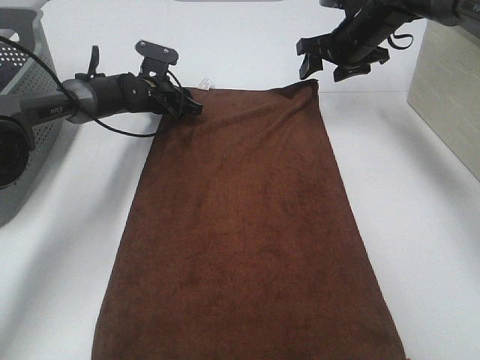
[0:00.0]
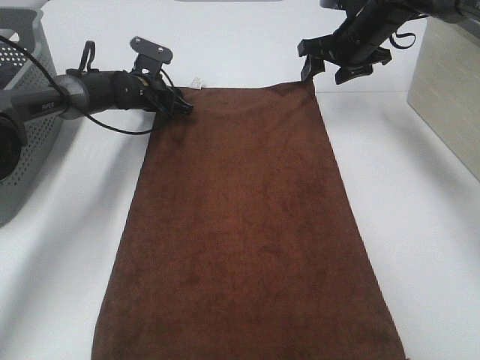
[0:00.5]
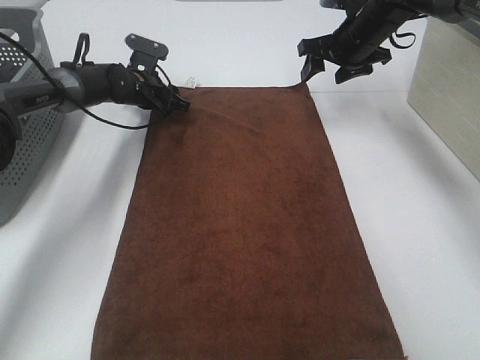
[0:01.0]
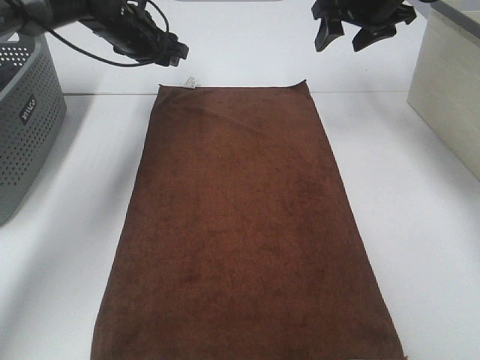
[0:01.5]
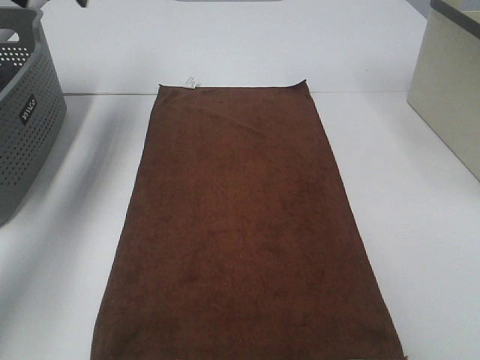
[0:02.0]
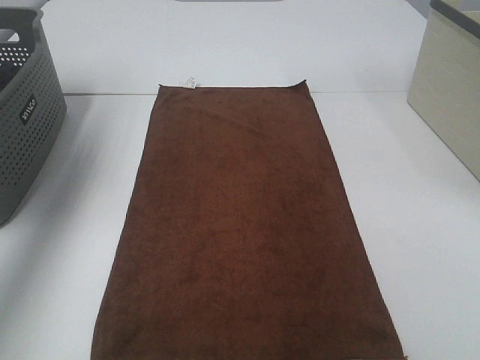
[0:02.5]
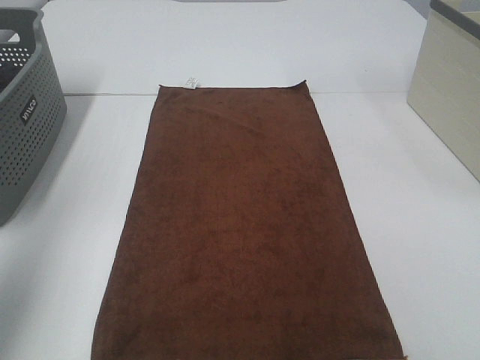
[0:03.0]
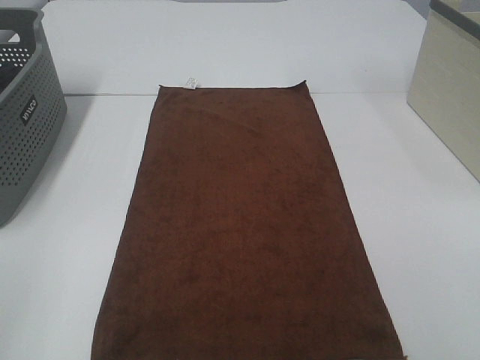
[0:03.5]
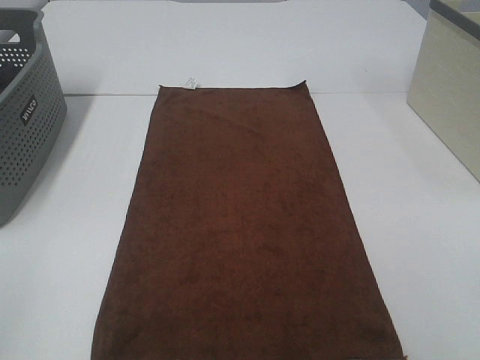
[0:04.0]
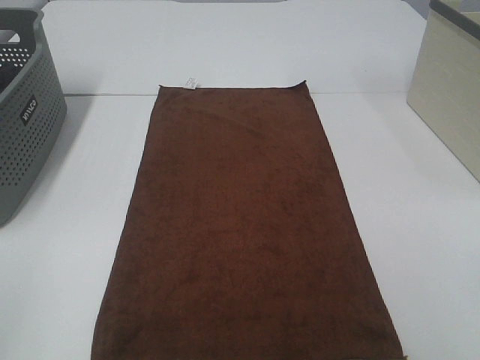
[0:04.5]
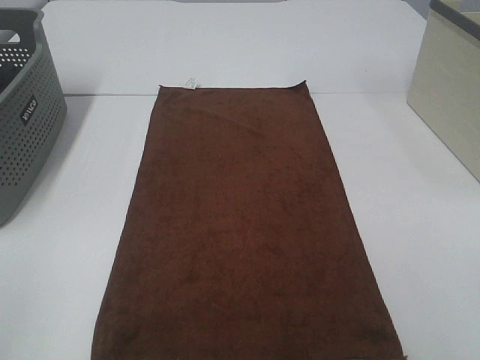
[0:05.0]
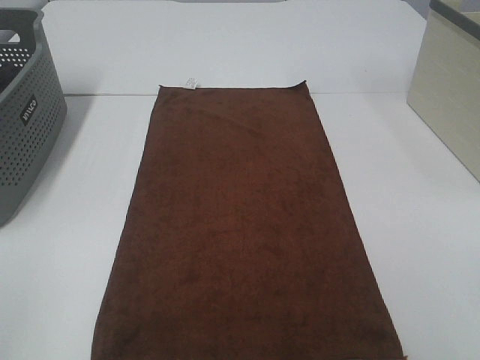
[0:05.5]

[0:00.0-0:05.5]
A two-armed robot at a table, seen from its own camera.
Task of the whole recording: Remove the towel and place it.
0:00.0 to 0:02.0: The right gripper heads upward, backward and to the right, covering about 25 cm. Meanwhile the left gripper moves upward, about 30 cm.
0:02.0 to 0:03.5: The left gripper heads backward, covering about 50 cm.
